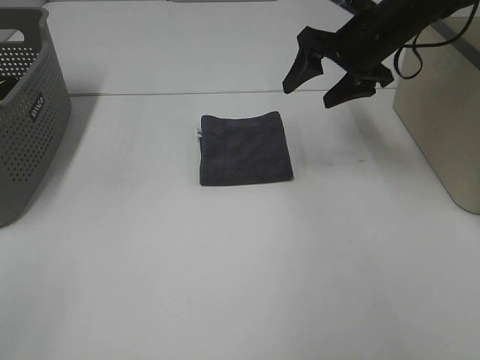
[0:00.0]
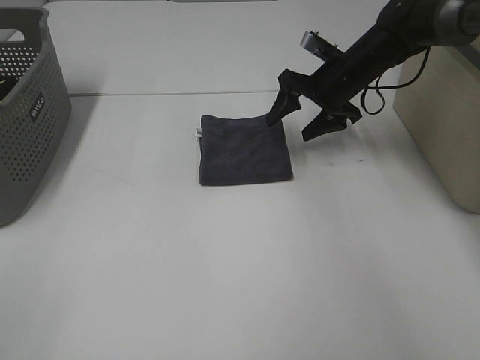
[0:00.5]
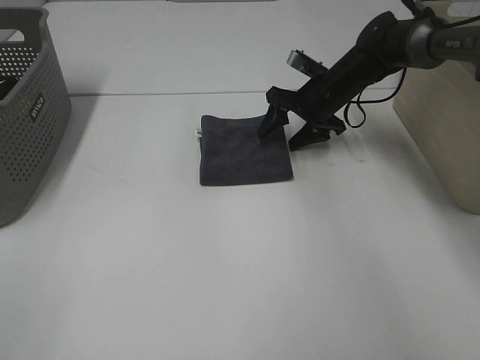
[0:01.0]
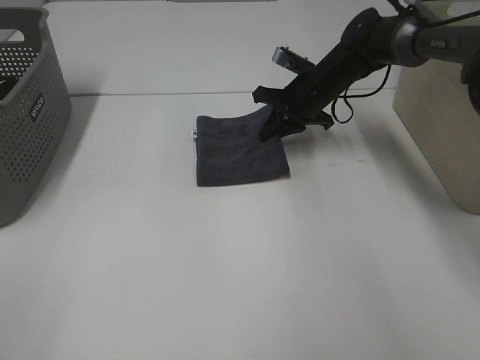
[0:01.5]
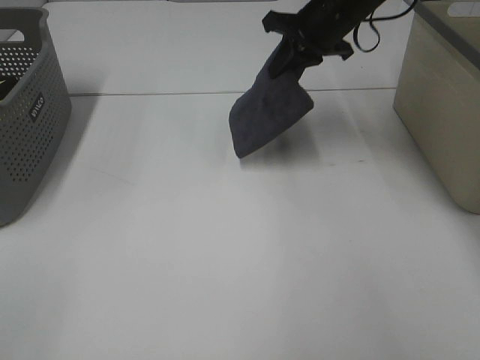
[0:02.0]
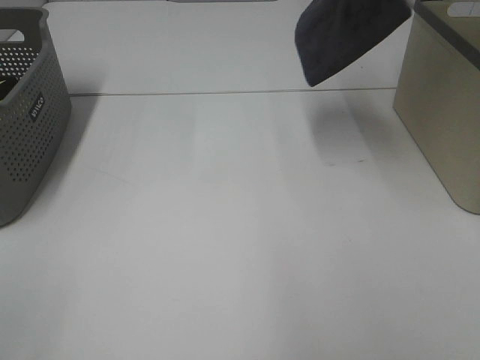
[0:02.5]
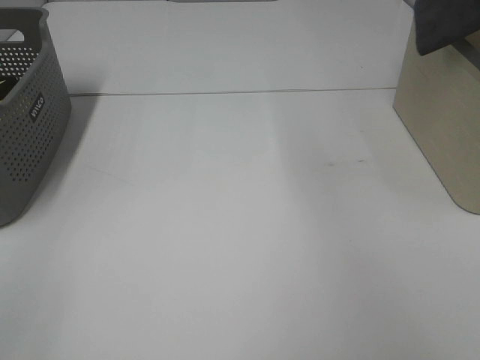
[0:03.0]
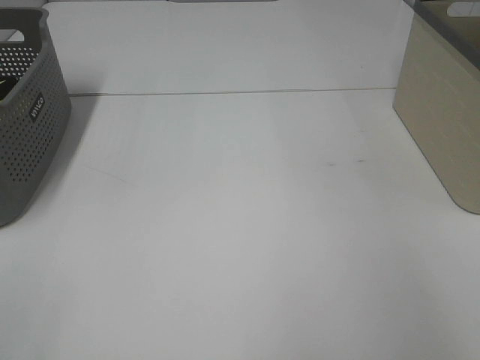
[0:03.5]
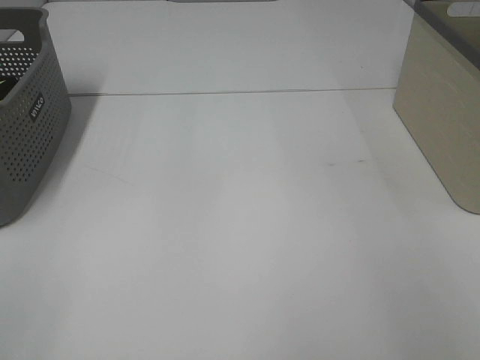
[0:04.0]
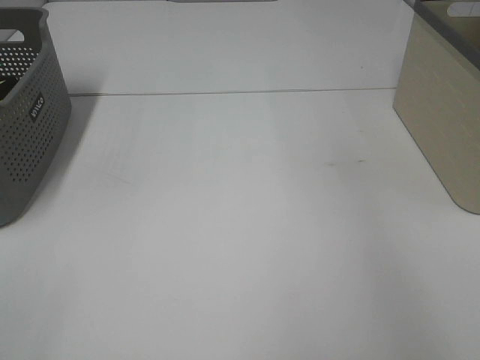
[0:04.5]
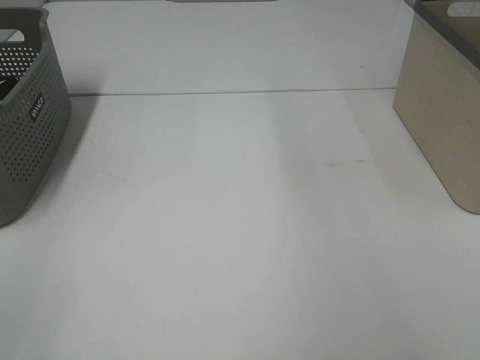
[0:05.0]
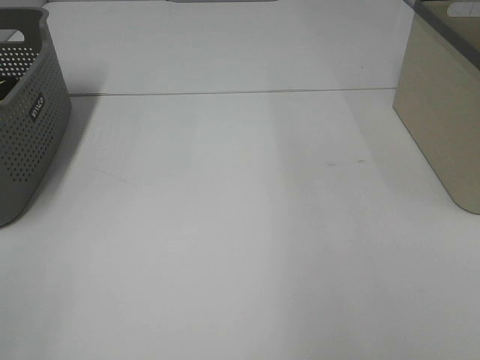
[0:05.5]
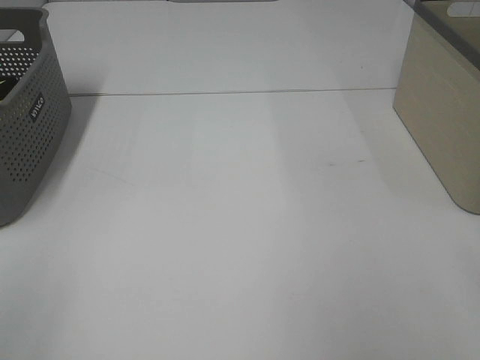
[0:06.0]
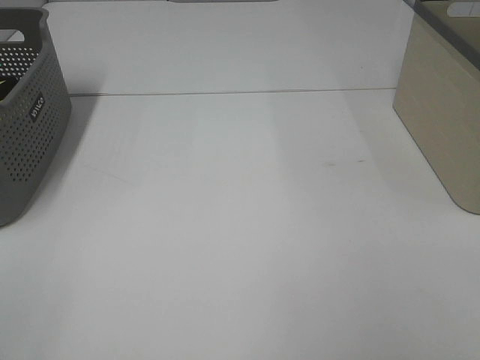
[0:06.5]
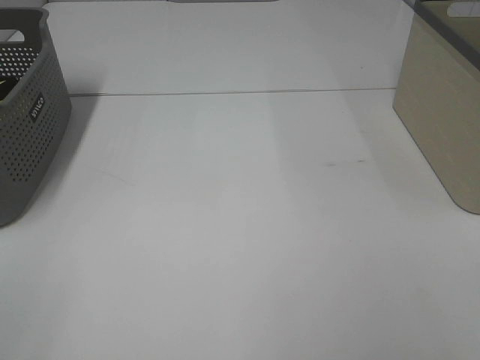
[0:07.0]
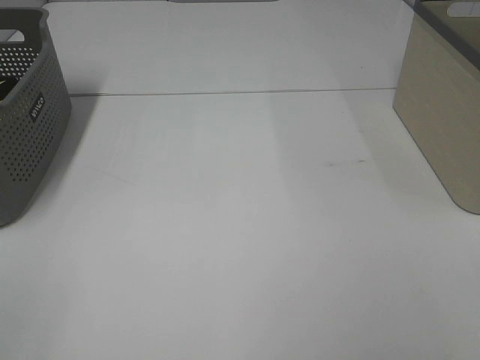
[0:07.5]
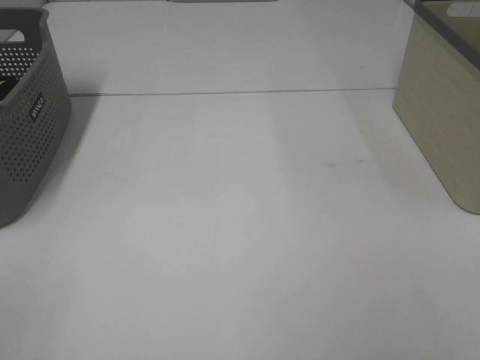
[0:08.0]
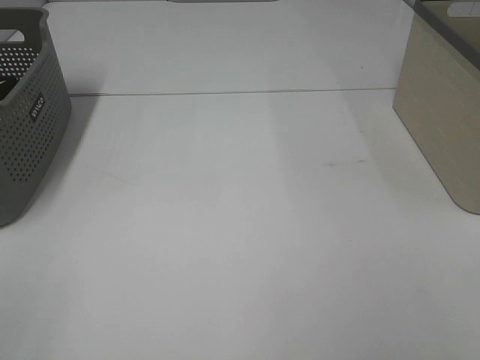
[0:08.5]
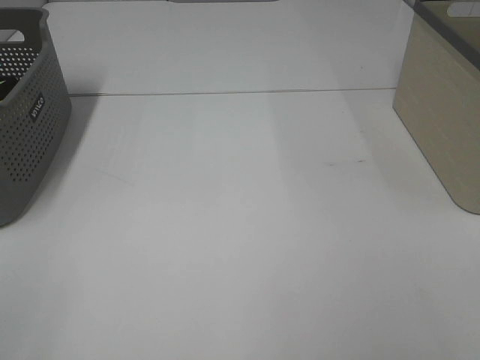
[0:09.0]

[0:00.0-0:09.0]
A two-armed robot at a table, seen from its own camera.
Step, 0:02.0 to 0:04.0: Right hand: place the grey towel in right basket.
0:00.0 to 0:02.0: The right gripper reaches some 10 cm downward, then returns, and closes up.
0:02.0 to 0:04.5: The right gripper goes about 25 cm to the right and upward, and opens.
0:07.0 to 0:09.0: Both grippers stay put.

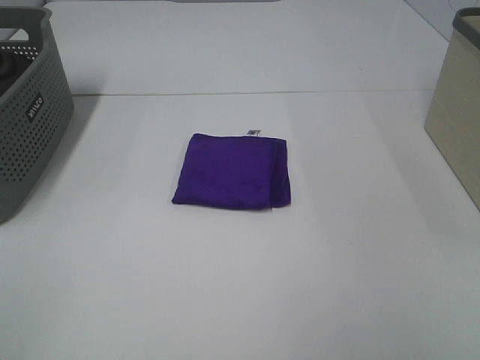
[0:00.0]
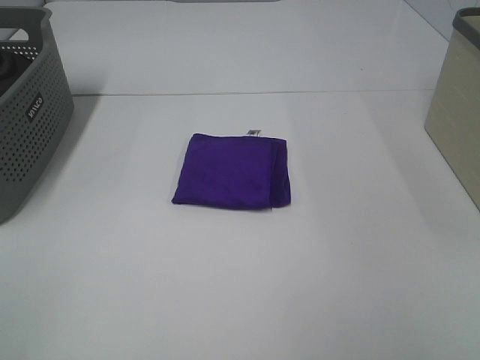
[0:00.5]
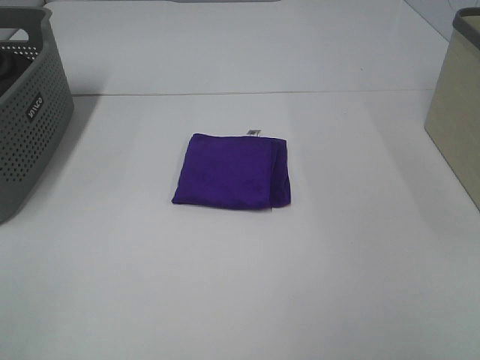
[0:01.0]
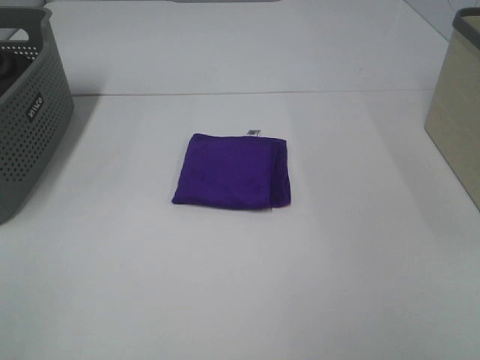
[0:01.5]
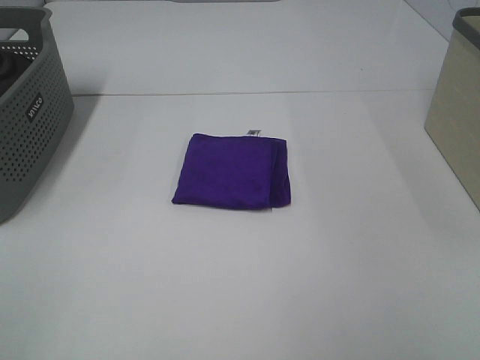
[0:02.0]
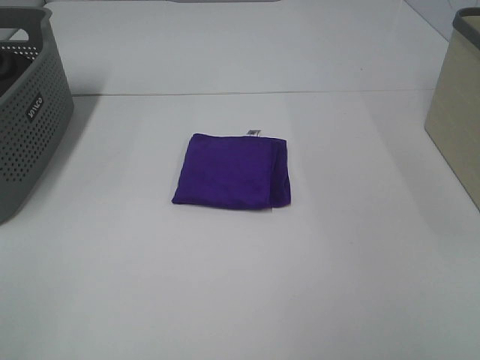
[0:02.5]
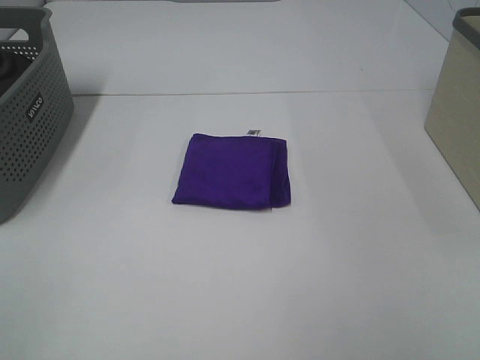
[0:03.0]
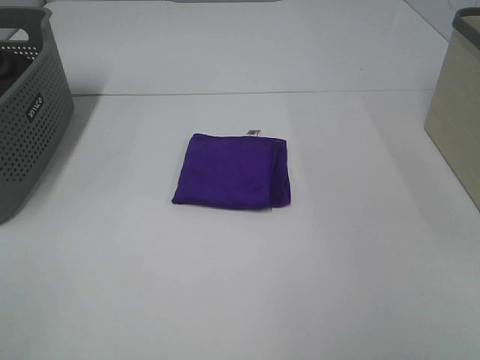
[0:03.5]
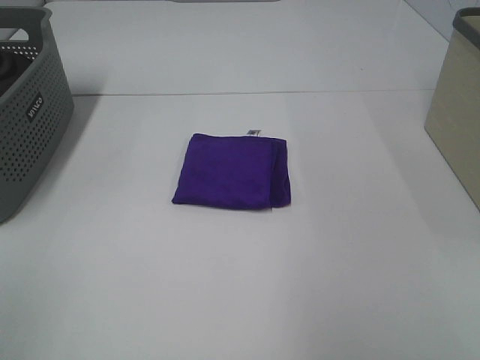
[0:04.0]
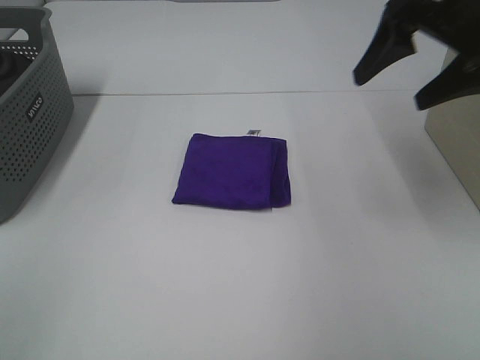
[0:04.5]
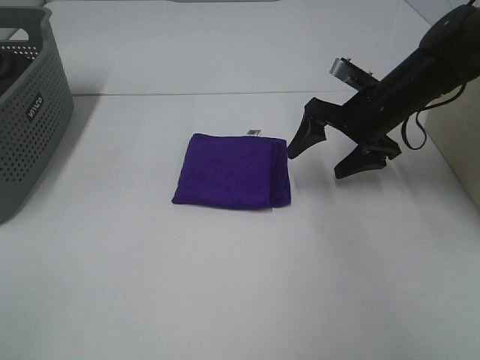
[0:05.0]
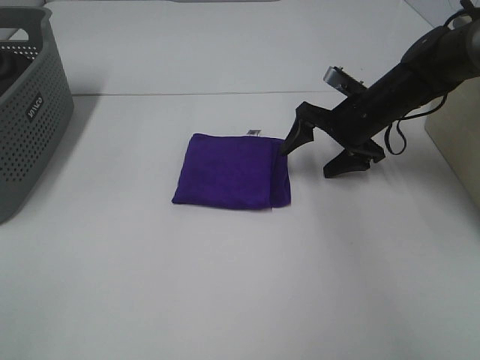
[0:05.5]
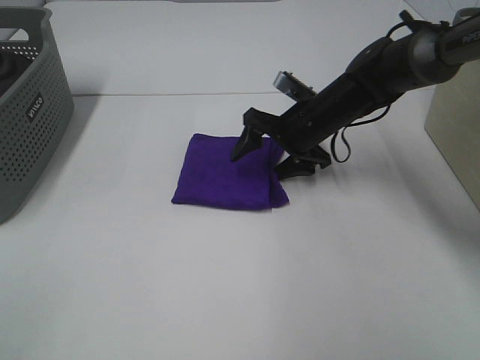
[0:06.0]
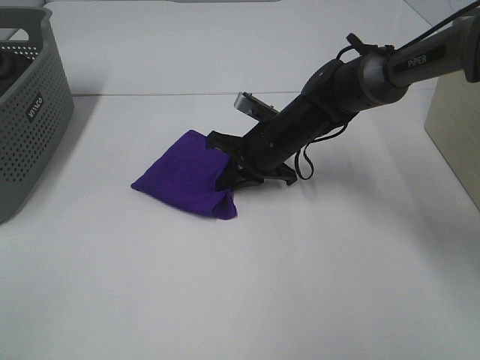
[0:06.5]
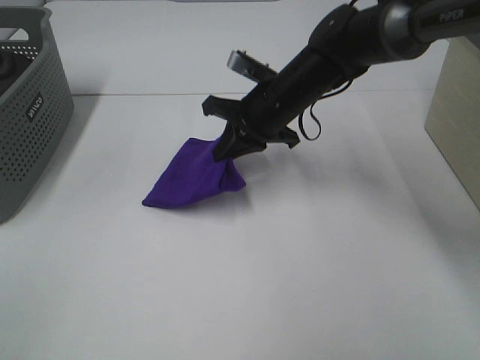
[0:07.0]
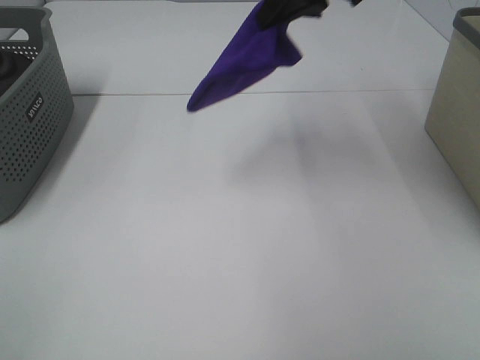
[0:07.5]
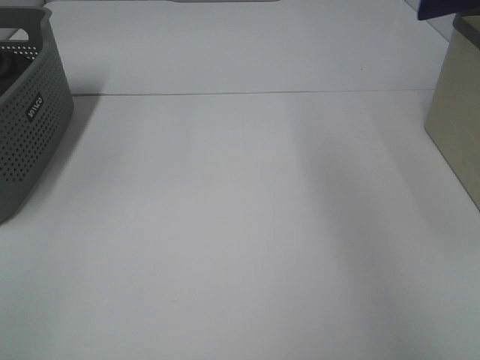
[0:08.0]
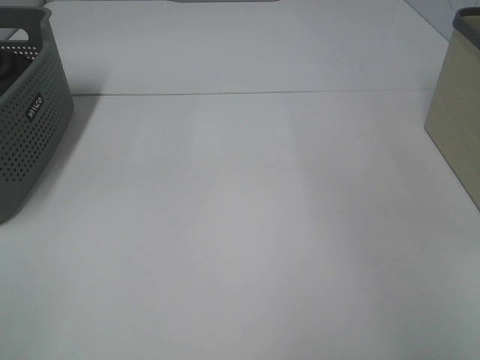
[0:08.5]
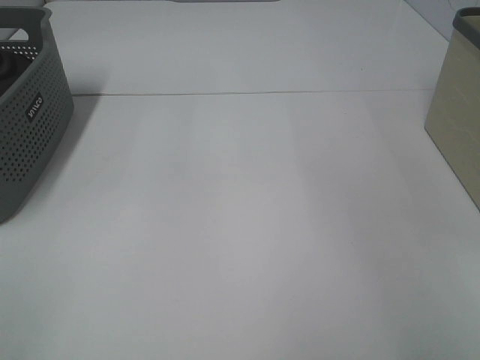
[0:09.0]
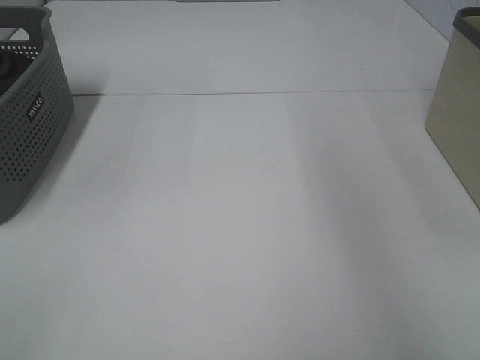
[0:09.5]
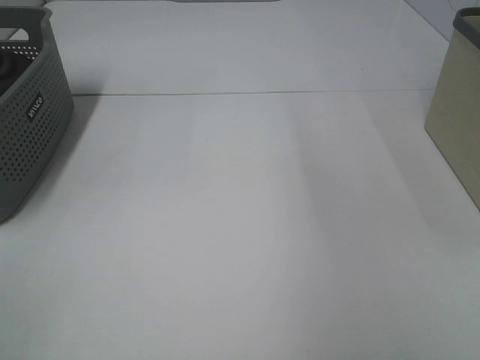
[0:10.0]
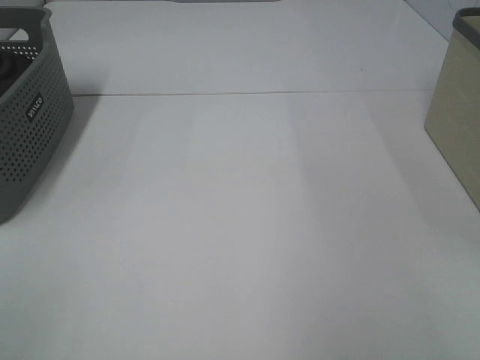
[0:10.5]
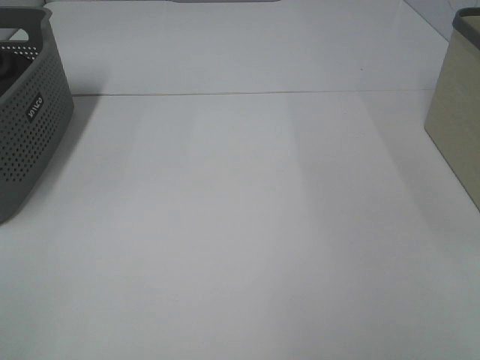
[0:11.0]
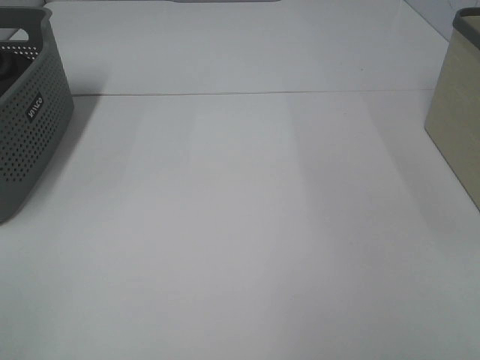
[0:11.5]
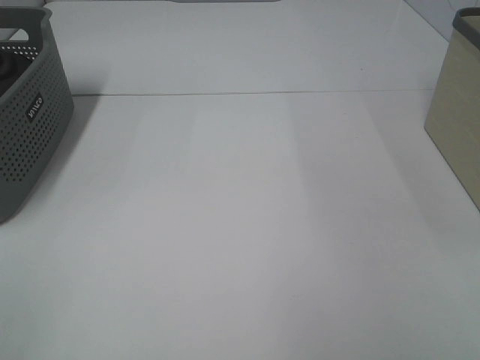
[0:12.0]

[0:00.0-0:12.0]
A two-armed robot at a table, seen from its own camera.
Step, 0:00.0 to 0:06.5: Right hand: grab the folded purple towel.
Step, 0:07.0 to 0:09.0: Right hand: place the purple towel in right basket.
0:00.0 to 0:02.0: Both grippers stay put.
0:04.0 to 0:06.0: The right gripper heads downward, forward and to the left, covering some 40 cm.
0:06.0 to 0:08.0: The right gripper shifts about 40 cm upward and to the right, and closes.

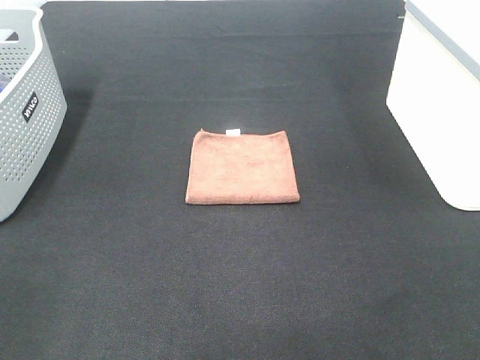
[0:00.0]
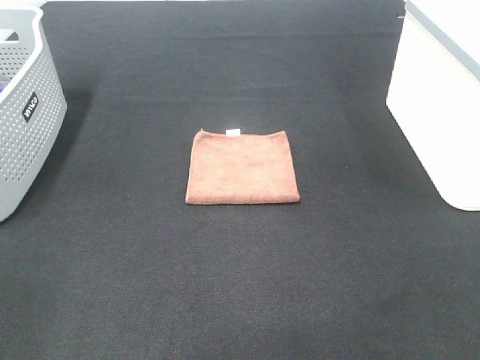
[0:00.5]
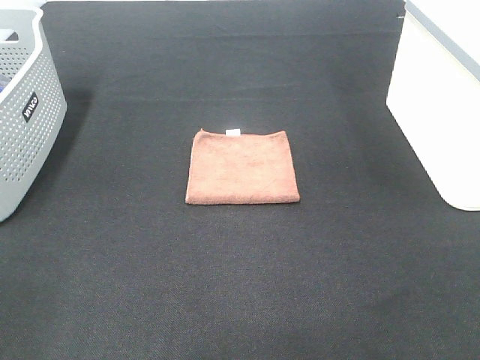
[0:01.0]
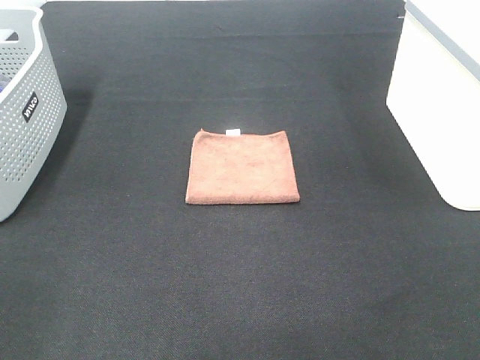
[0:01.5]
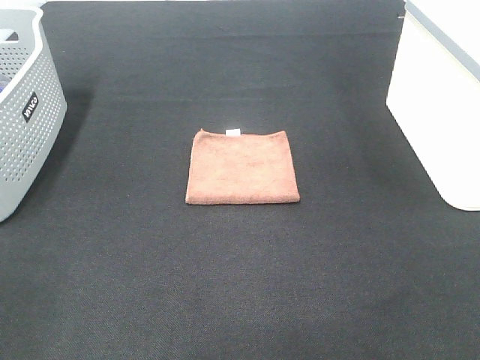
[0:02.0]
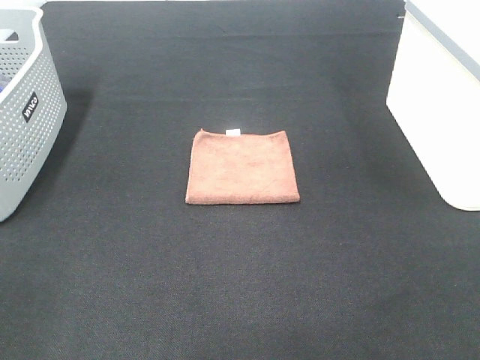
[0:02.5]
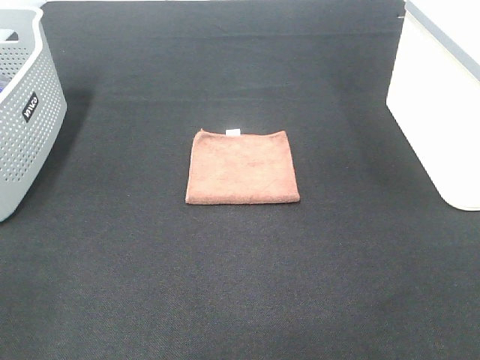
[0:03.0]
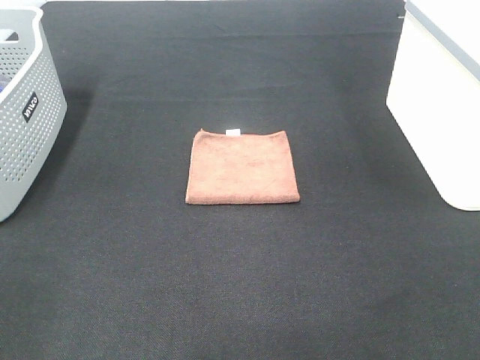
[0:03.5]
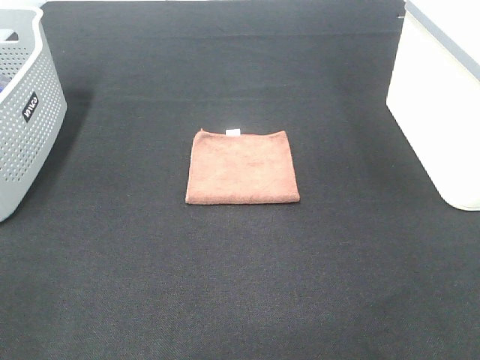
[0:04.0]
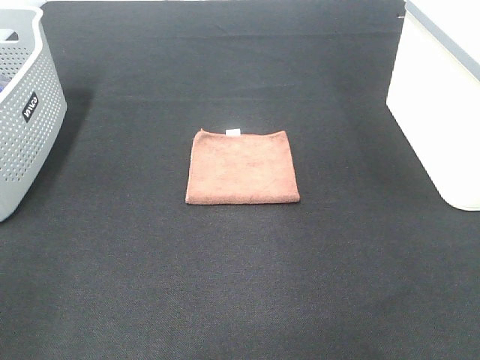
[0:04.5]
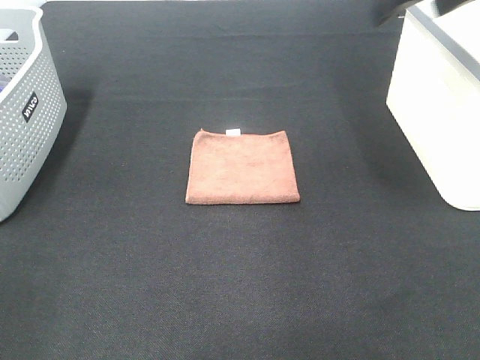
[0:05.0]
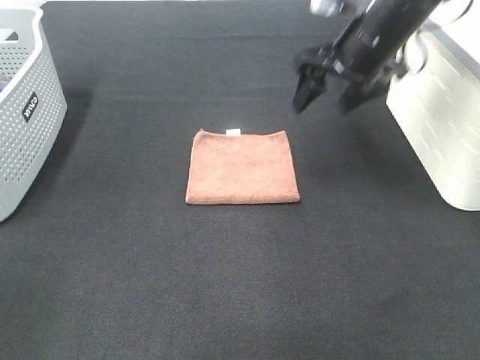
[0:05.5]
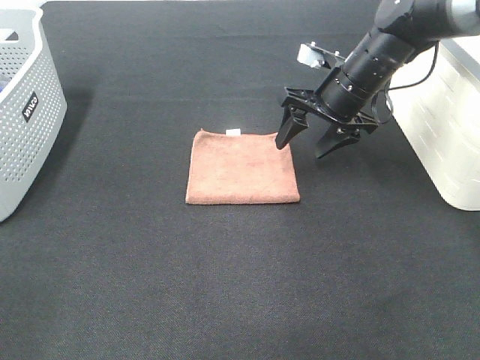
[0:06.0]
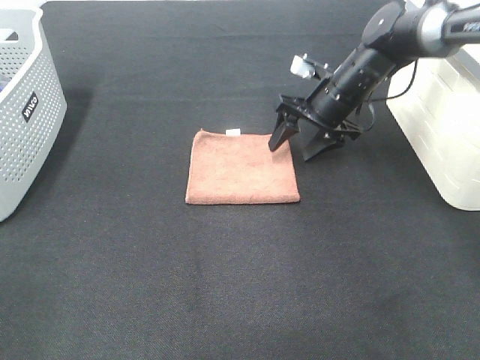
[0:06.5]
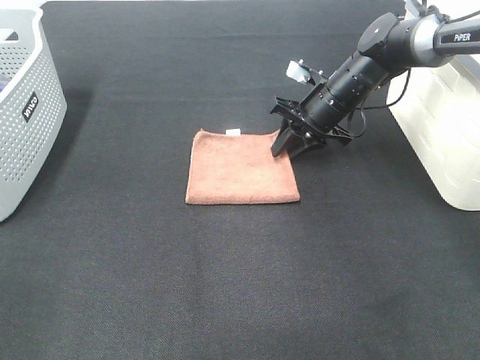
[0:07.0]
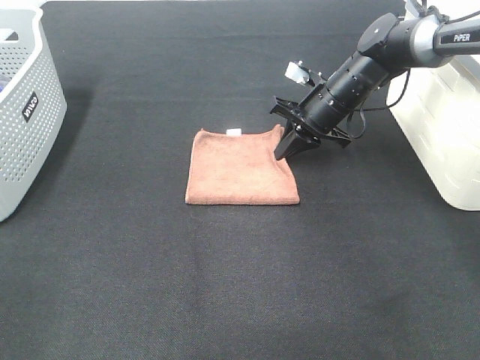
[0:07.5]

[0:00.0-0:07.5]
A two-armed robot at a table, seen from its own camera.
Step, 0:00.0 to 0:07.0: Right hand: grab the folded brown towel.
0:00.0 to 0:02.0: Neither gripper changes place.
0:04.0 to 0:05.5: The right gripper goes approximately 35 cm forward.
0:05.5 to 0:07.5: The right gripper heads downward and forward, covering about 15 cm, and closes its fingers.
